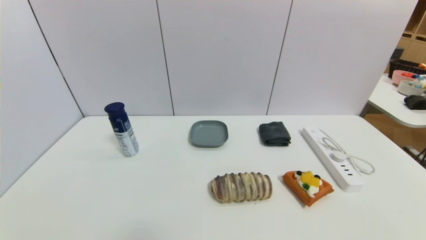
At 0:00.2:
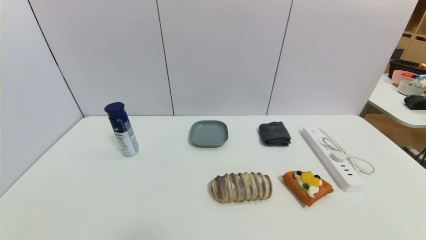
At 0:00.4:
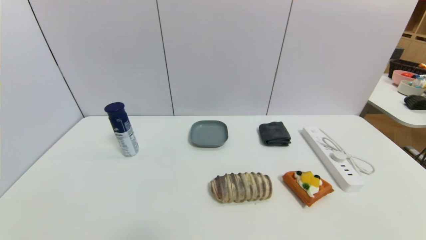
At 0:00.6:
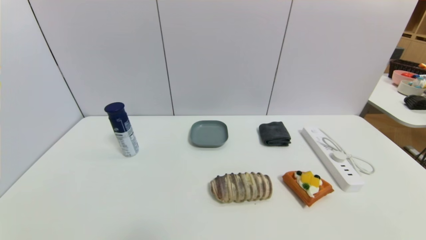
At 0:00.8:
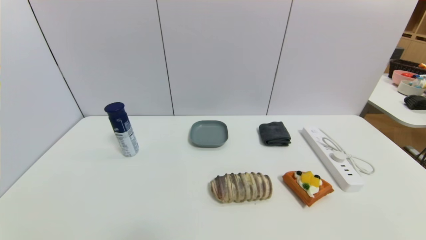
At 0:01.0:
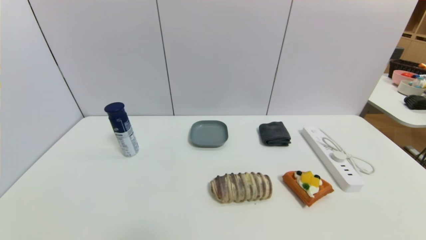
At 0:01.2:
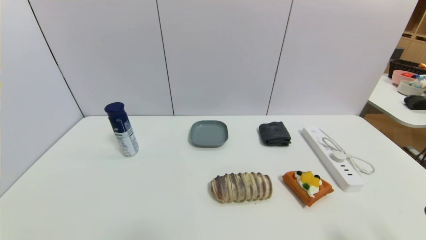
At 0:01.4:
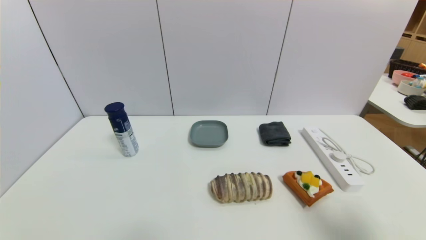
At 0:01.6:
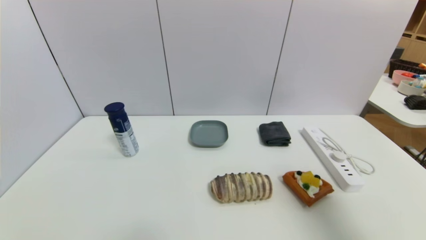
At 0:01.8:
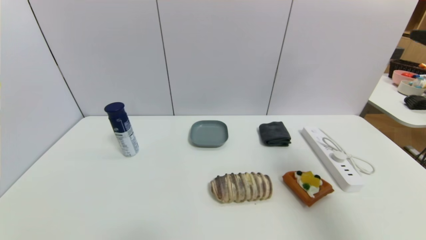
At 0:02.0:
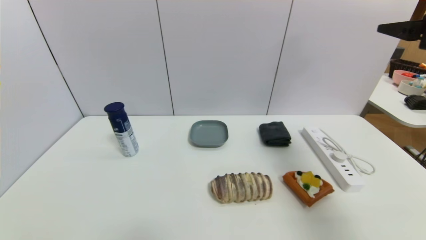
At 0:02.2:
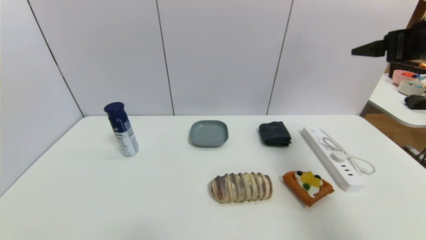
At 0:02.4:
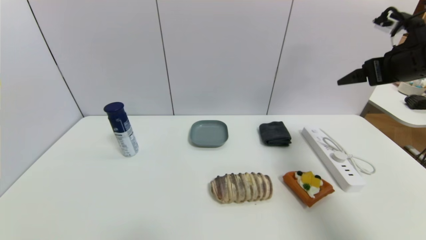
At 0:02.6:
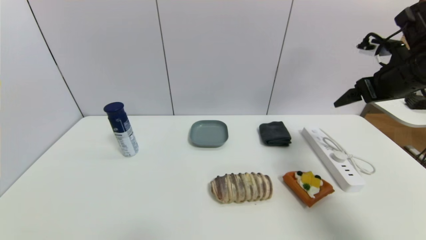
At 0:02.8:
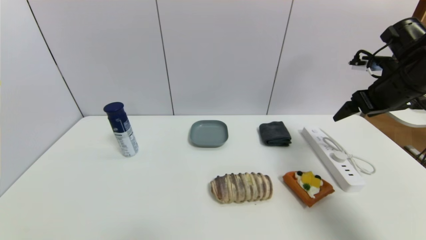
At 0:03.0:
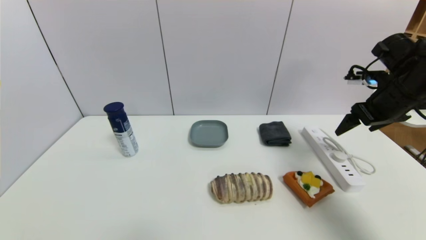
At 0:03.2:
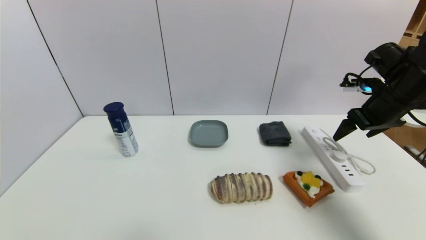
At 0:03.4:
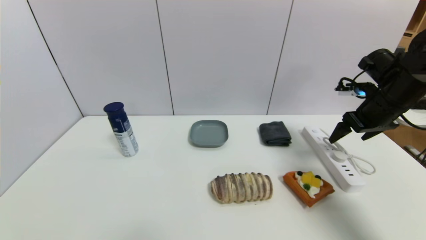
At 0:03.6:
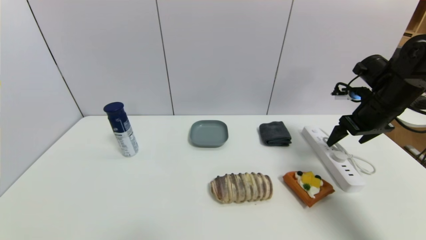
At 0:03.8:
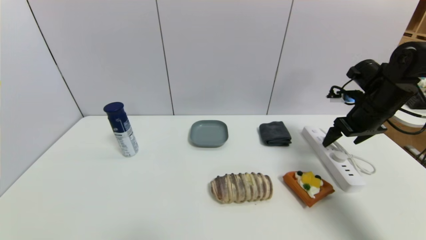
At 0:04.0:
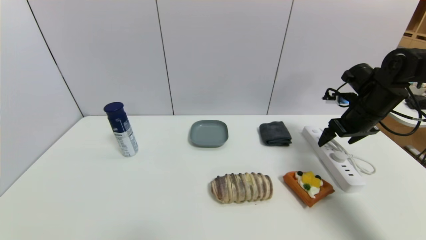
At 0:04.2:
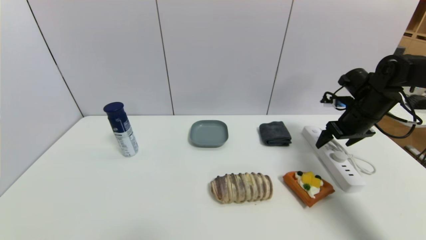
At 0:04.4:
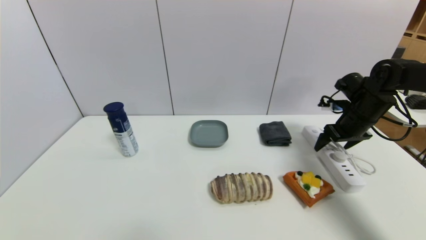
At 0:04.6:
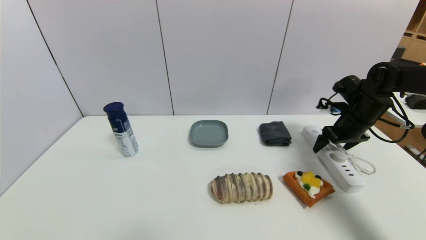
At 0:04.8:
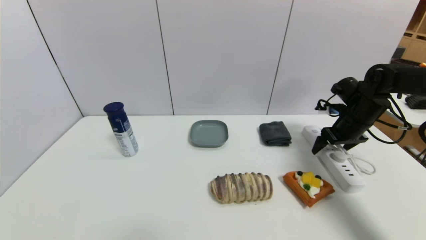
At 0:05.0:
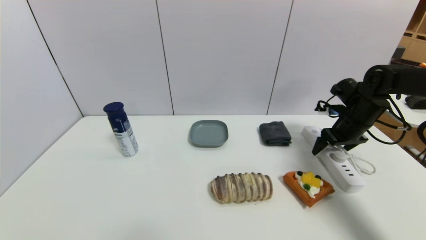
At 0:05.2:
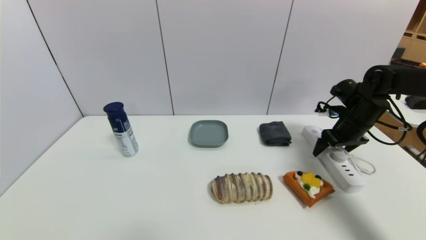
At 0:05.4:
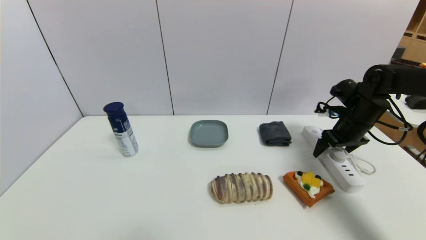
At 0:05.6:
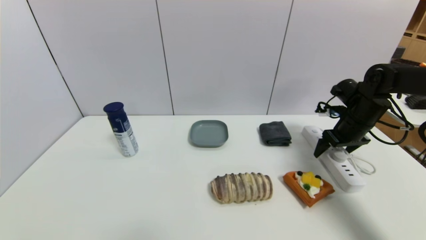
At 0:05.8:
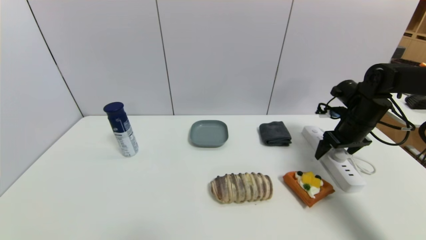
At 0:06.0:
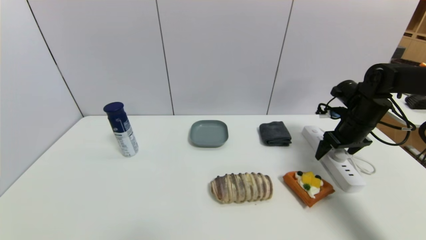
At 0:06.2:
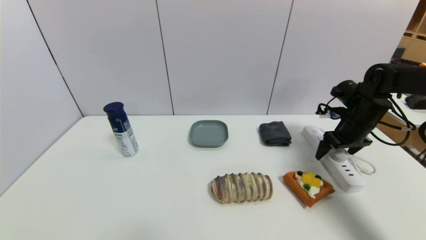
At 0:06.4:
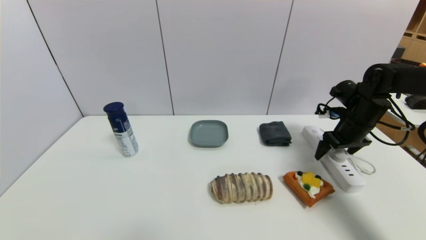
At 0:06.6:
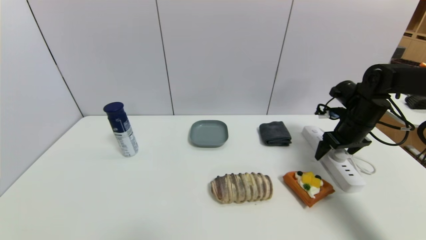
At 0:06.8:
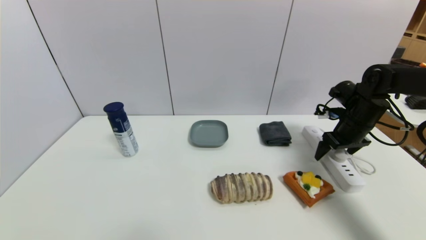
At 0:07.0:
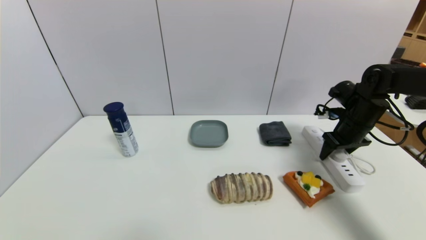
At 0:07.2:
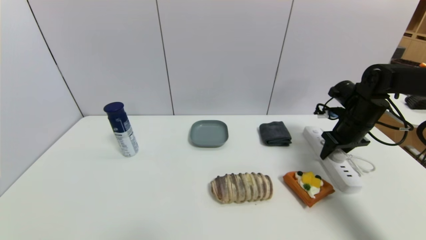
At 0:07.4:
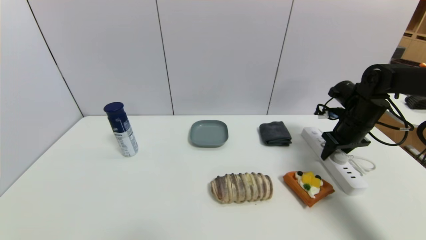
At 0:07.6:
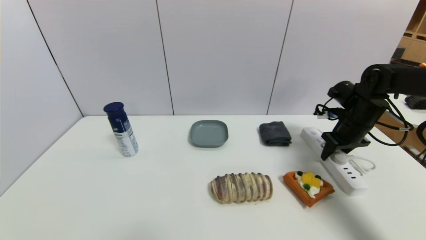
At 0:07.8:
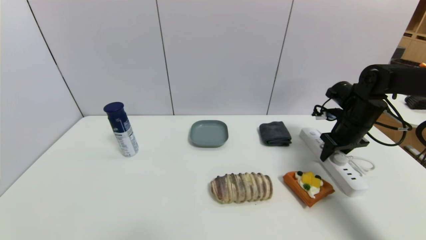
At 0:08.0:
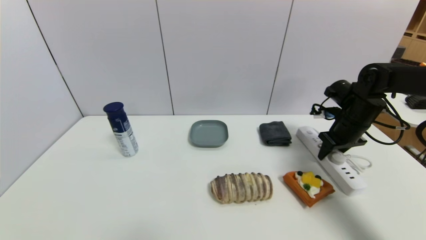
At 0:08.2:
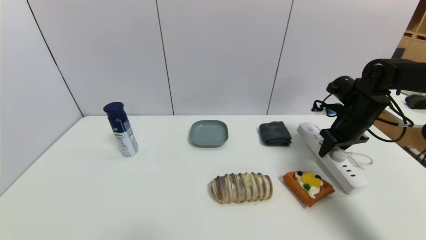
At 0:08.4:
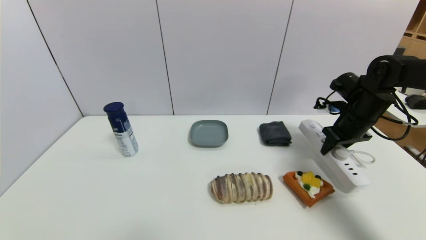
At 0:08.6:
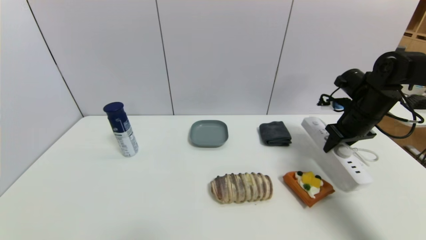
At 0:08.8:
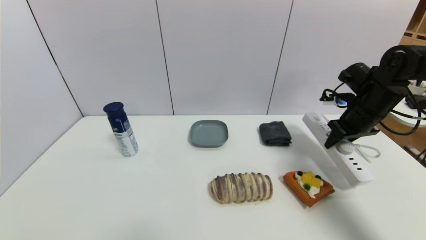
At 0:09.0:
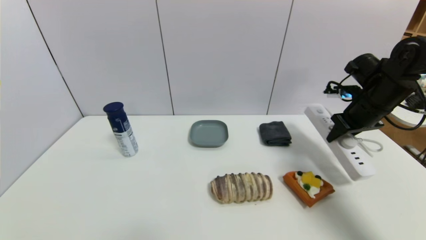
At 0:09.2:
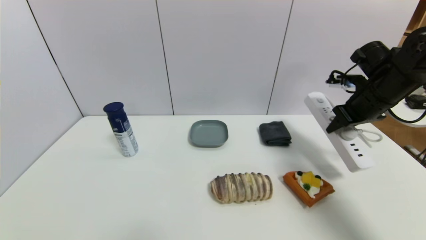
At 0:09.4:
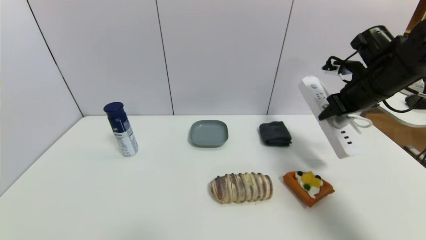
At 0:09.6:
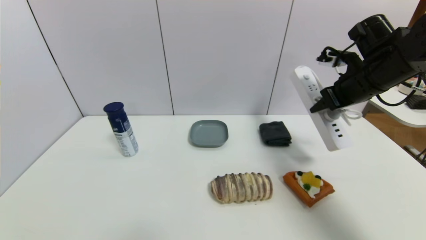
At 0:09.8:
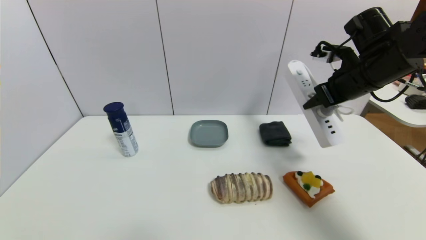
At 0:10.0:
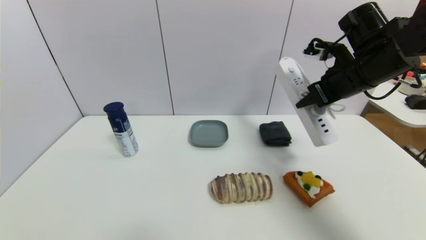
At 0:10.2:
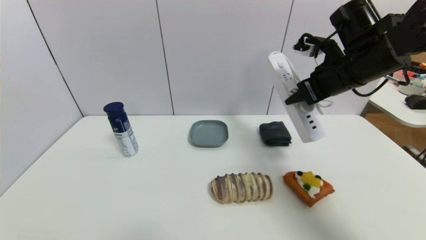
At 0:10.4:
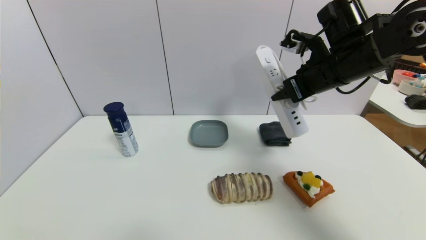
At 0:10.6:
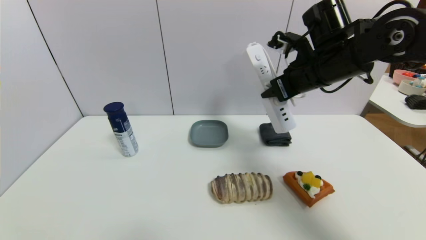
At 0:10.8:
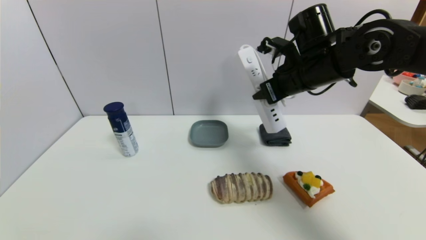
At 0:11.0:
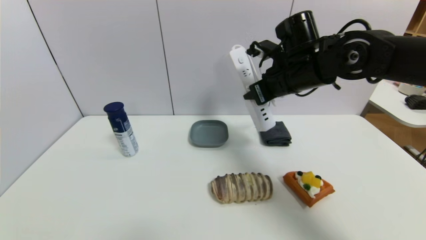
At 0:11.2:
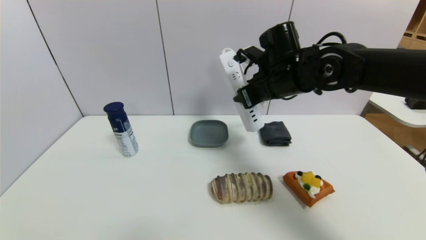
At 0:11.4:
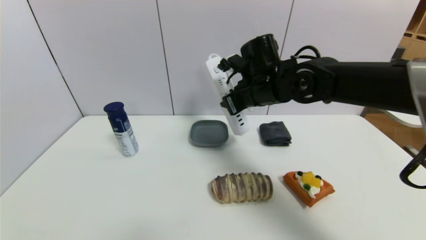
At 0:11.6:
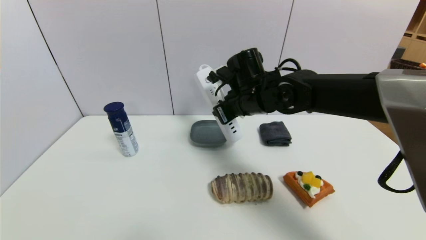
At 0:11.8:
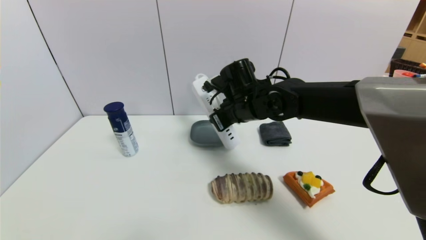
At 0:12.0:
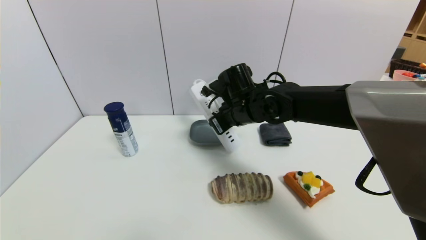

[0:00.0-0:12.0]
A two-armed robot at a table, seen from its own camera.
Task of the whole recording: use a gripper to pick the target object and place on the dish.
Step, 0:00.0 to 0:07.6: Grasp the plugboard with the right gripper.
0:00.0 to 0:01.6: The right gripper goes some 25 cm upward and forward.
0:01.6 to 0:03.0: The right gripper travels forward by roughly 20 cm.
0:03.0 to 0:04.4: The right gripper shifts about 10 cm downward and forward.
0:04.4 to 0:06.0: There are only small adjustments of the grippers.
0:06.0 to 0:07.6: The right gripper closes up.
0:07.6 to 0:09.0: The right gripper heads upward, covering roughly 5 cm.
0:09.0 to 0:10.4: The right gripper heads to the left and upward, covering roughly 15 cm.
0:10.4 to 0:12.0: The right gripper moves to the left and downward, approximately 20 cm.

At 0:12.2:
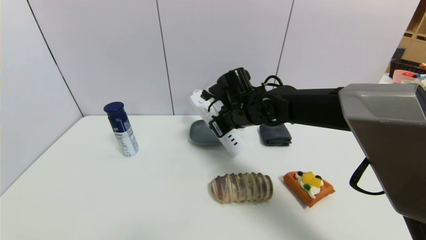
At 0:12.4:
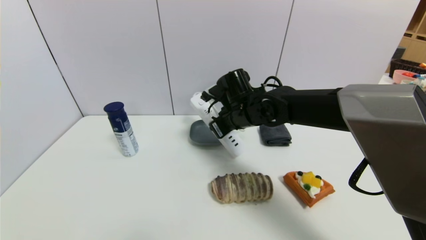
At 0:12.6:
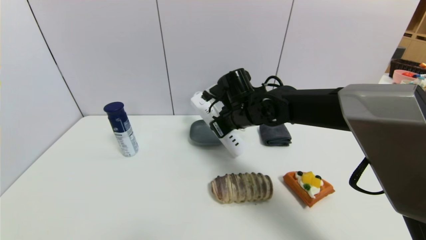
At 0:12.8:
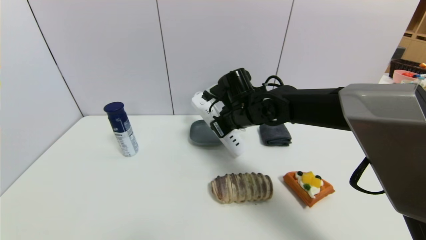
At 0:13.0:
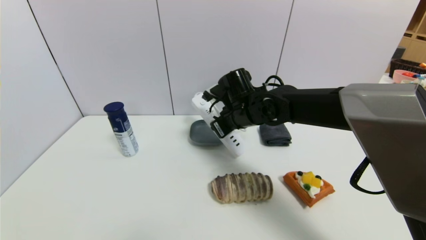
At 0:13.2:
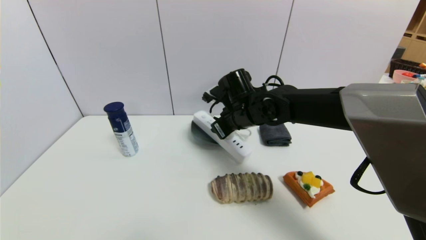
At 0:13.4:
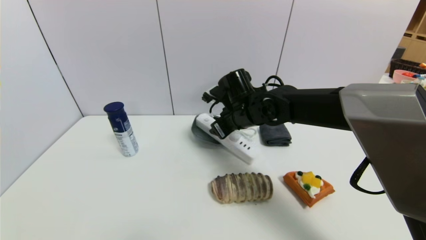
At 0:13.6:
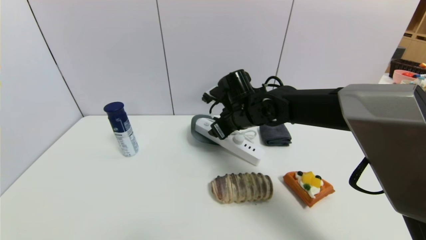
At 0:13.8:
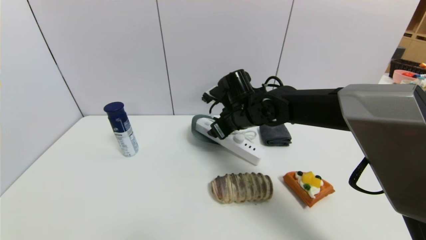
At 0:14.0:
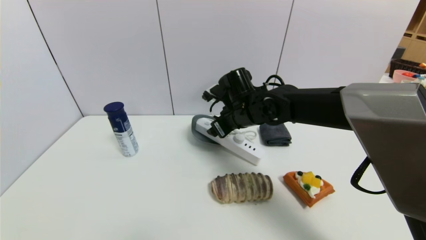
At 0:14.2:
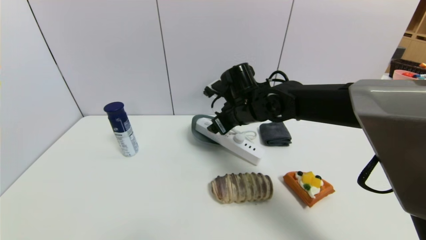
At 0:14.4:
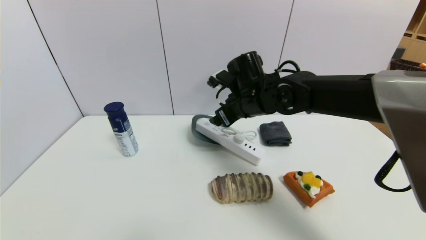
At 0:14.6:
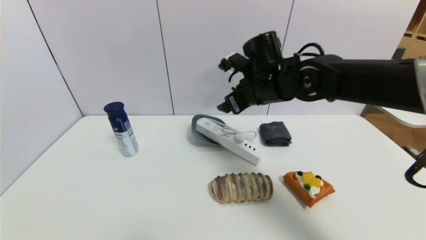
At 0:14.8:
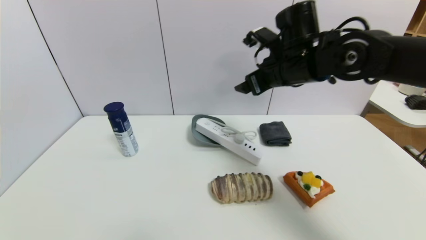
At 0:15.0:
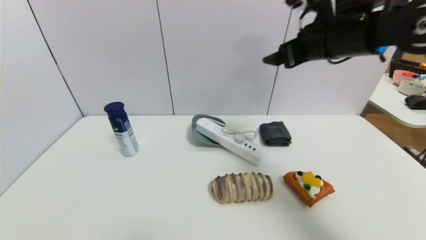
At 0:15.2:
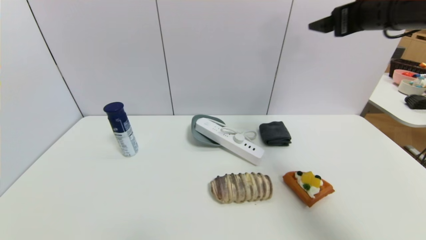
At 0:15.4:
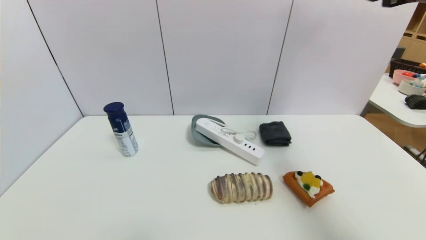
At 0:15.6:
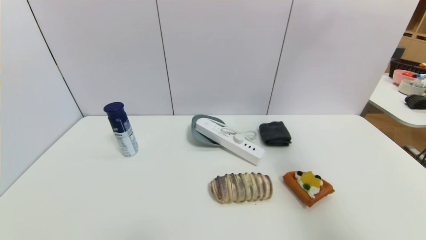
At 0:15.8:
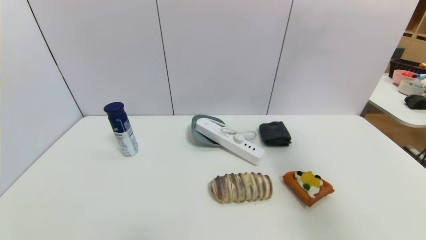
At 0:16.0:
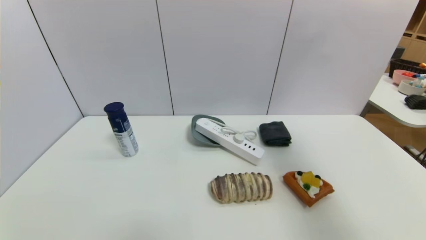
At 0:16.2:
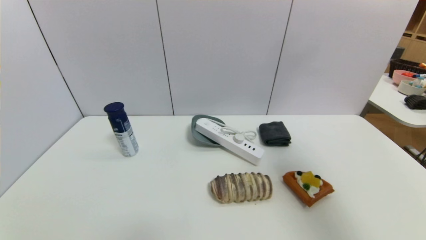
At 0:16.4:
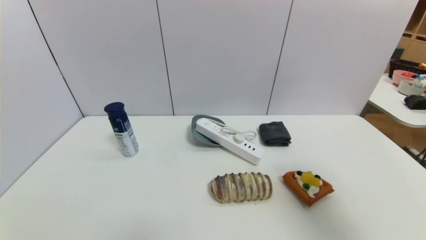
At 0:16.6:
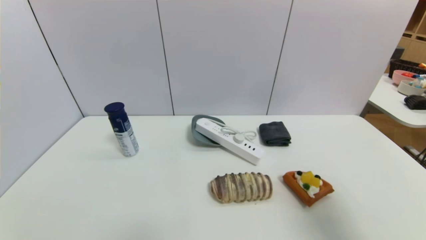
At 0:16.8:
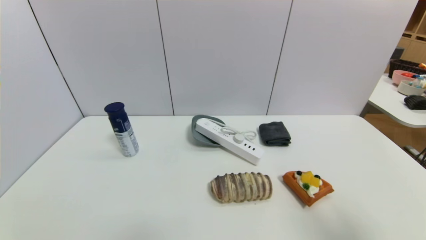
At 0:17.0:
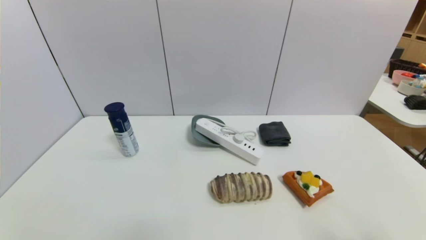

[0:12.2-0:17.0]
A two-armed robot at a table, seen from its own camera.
Task of the whole recording: use a gripper to pick the target object and place on the dish.
Step, 0:12.2 to 0:14.4: Place the plugboard on the dish with the right gripper.
0:12.2 to 0:13.8: The right gripper opens up.
0:13.8 to 0:15.4: The right gripper is displaced to the right and upward by approximately 35 cm.
0:15.4 to 0:17.0: The right gripper heads backward and downward, covering about 35 cm.
